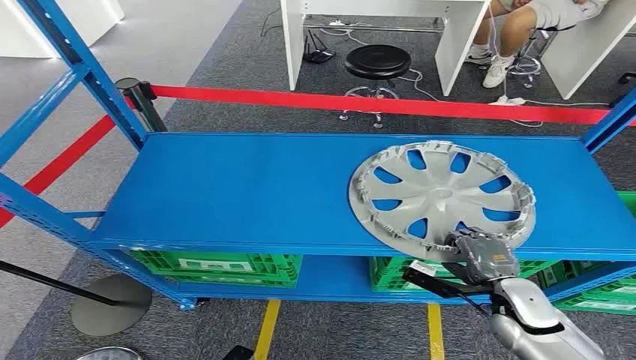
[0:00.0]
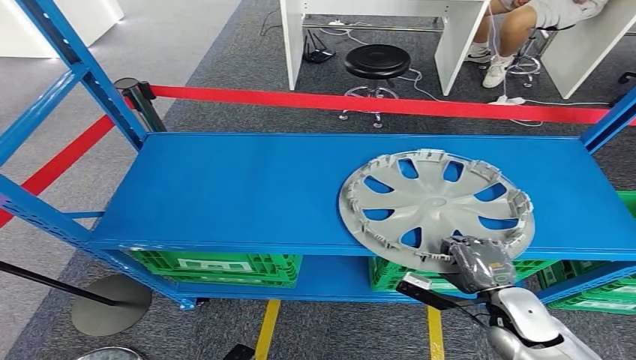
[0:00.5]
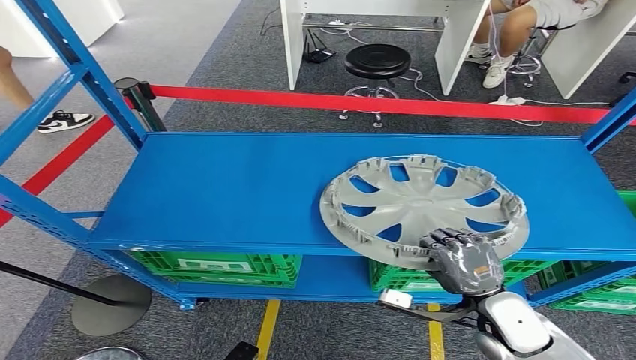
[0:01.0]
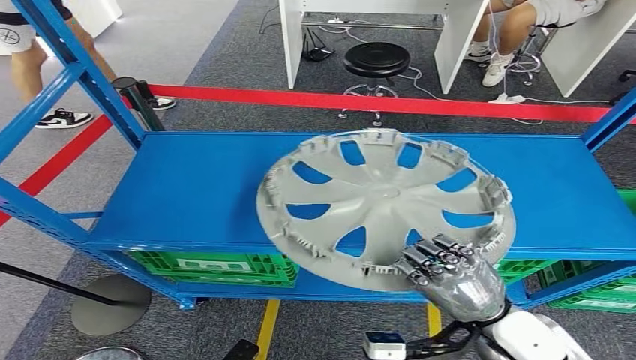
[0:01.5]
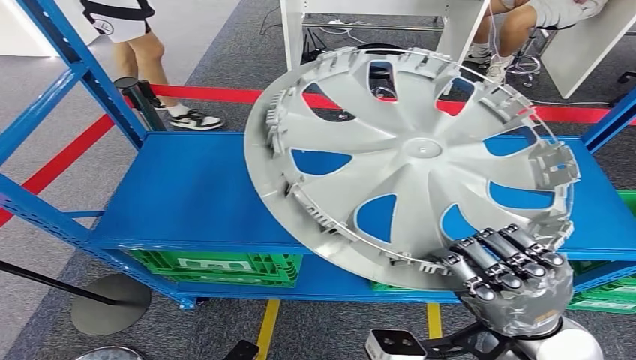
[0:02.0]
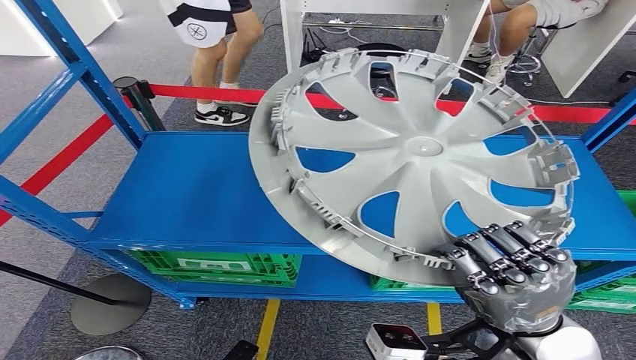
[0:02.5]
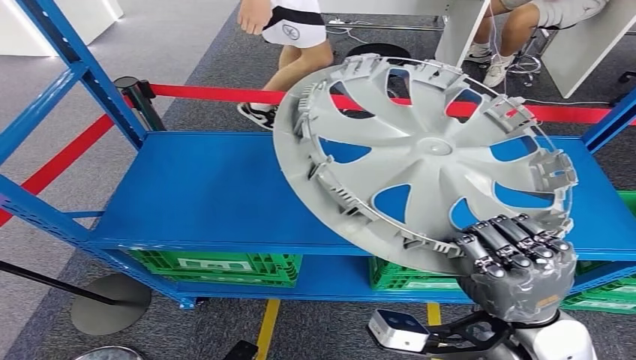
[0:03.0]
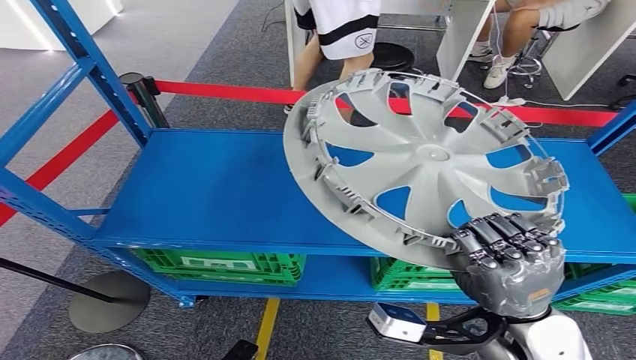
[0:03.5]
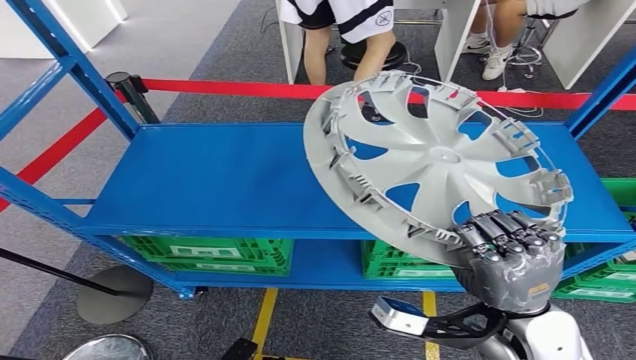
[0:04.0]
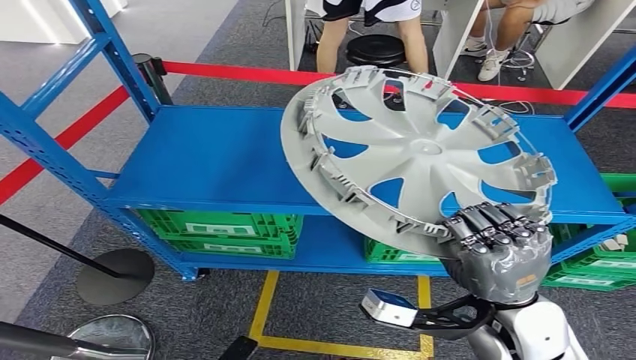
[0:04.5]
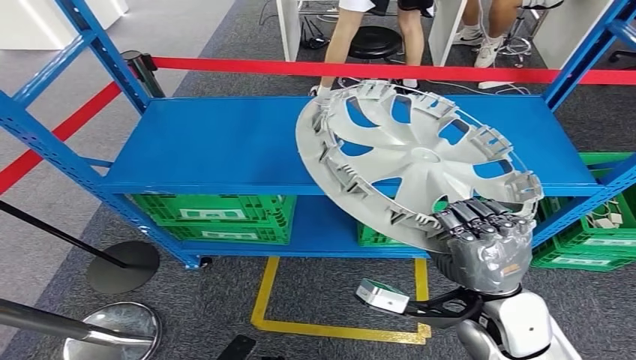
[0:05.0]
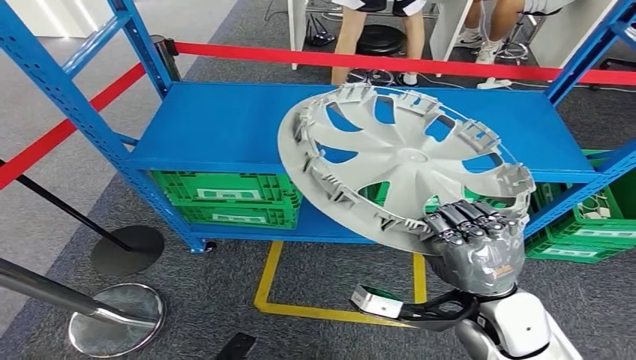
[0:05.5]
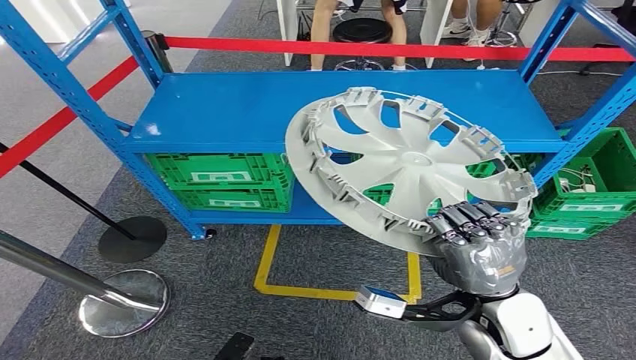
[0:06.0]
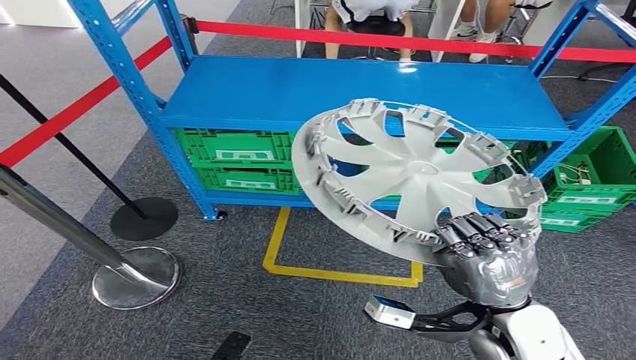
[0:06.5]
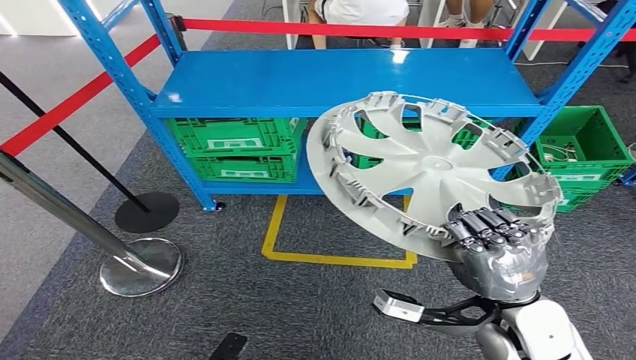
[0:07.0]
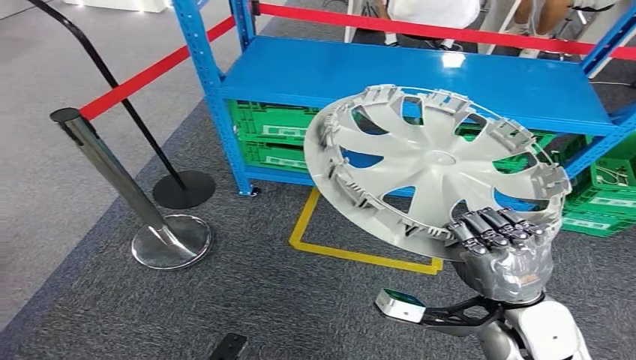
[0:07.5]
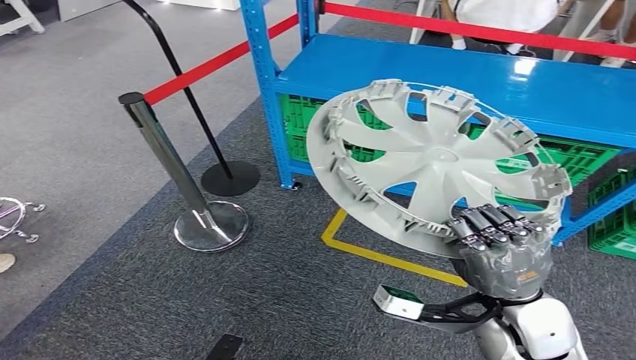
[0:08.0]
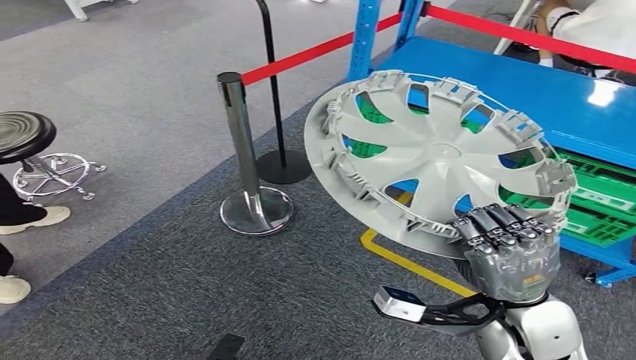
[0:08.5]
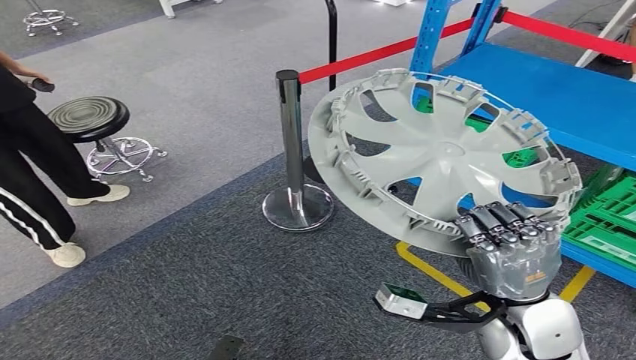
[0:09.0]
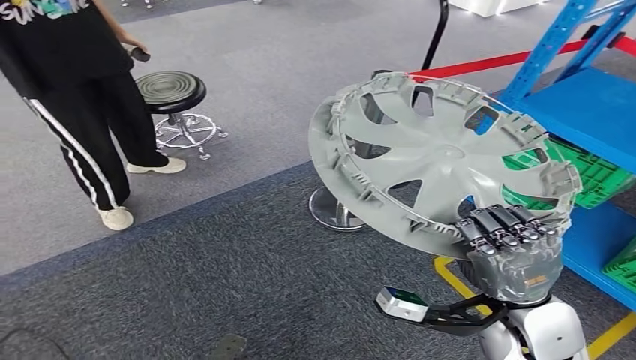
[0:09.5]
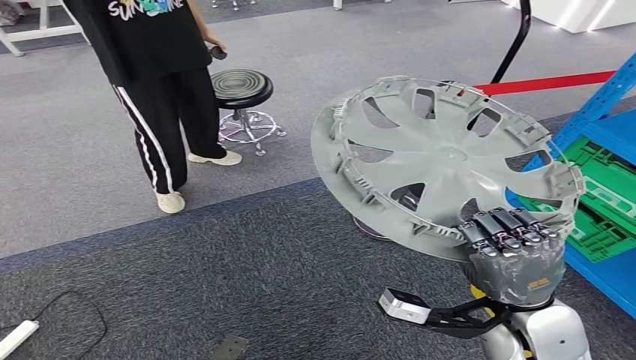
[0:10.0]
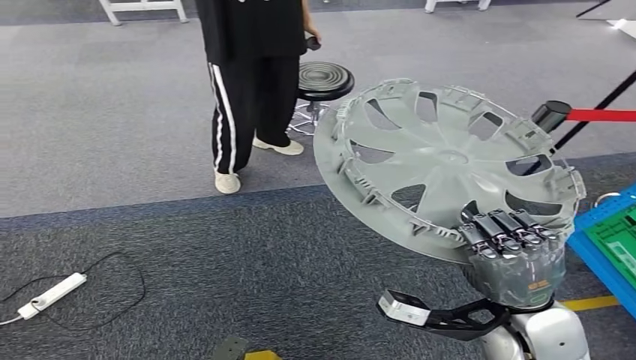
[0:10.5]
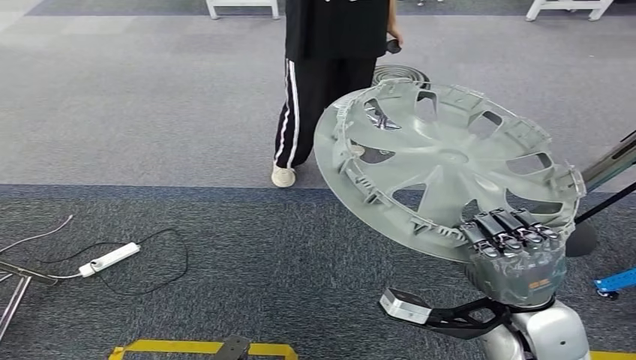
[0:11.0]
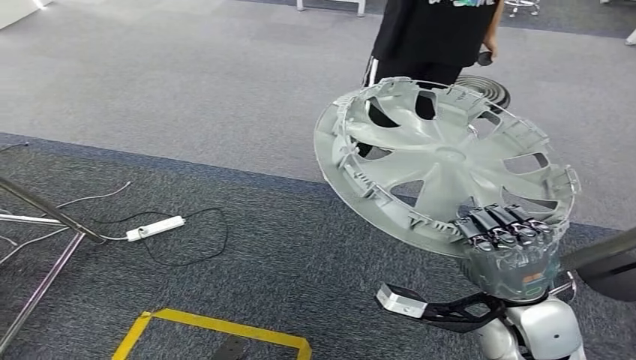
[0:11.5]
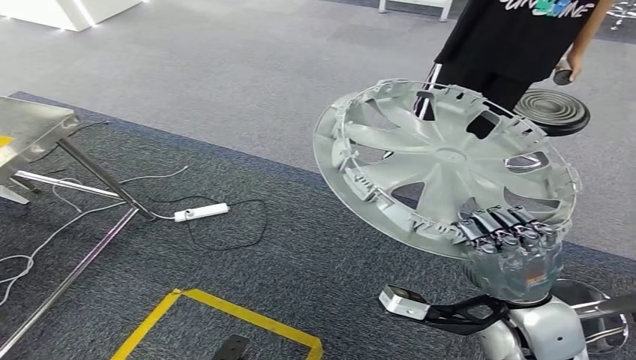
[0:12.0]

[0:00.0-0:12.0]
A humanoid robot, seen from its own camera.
Step, 0:00.0 to 0:03.5: Take small components from the rack.

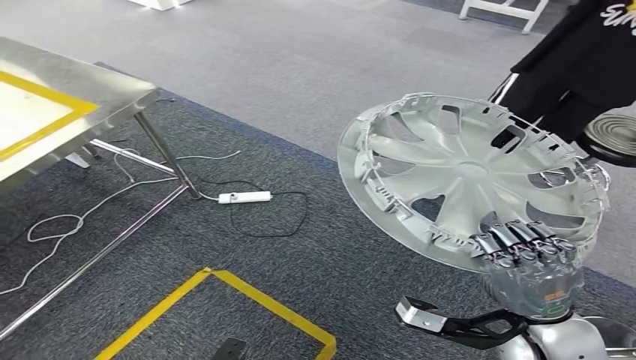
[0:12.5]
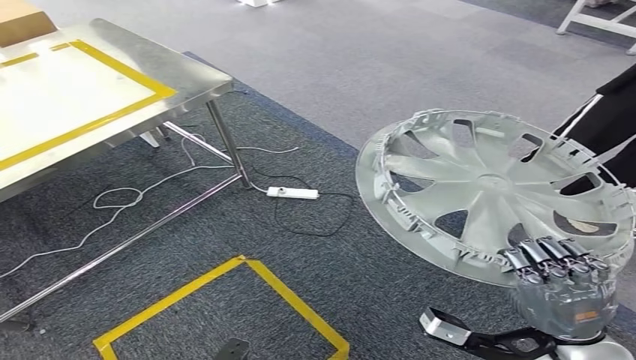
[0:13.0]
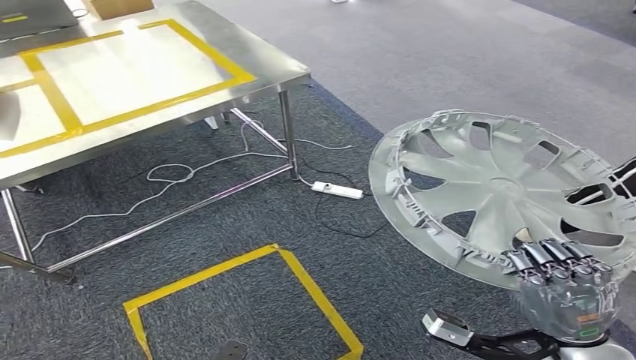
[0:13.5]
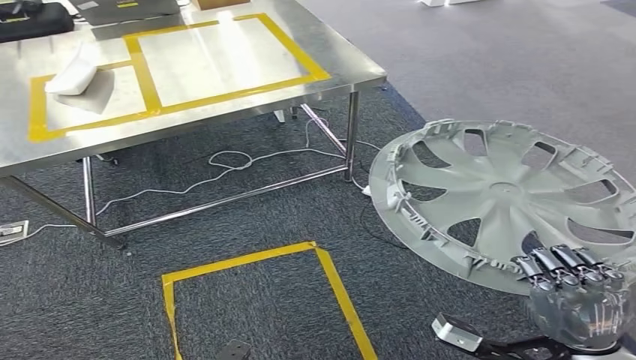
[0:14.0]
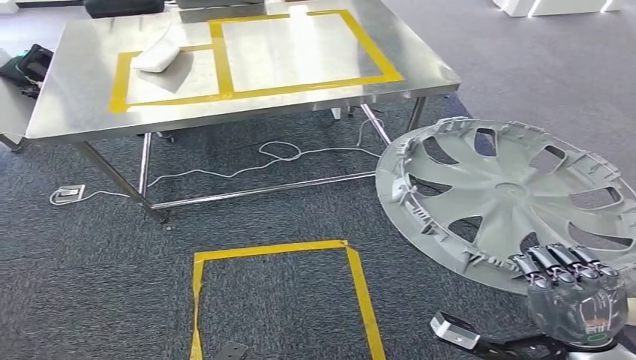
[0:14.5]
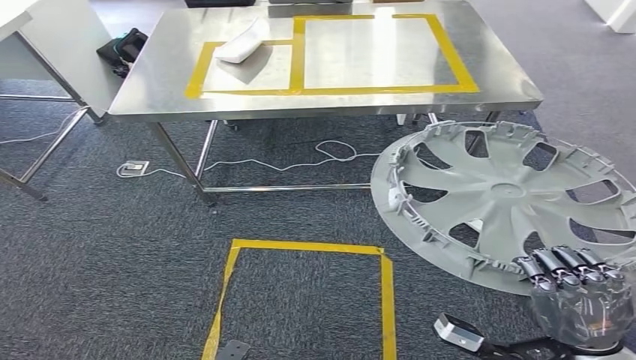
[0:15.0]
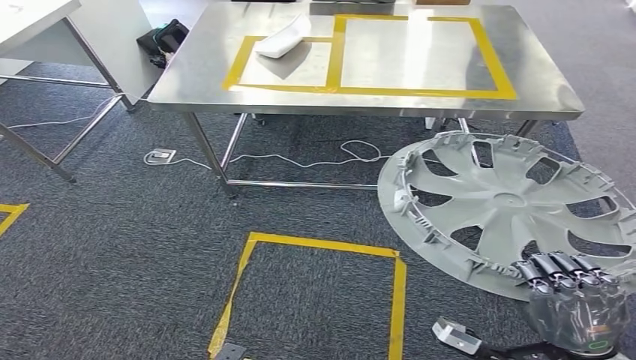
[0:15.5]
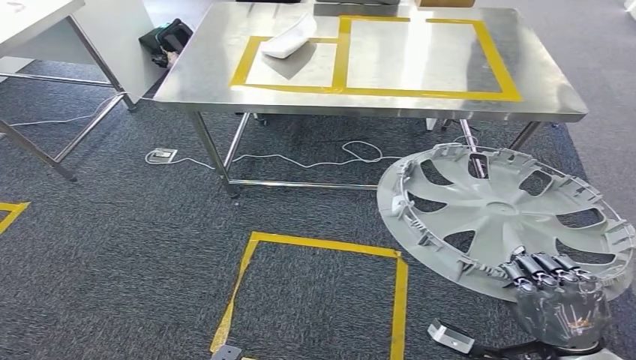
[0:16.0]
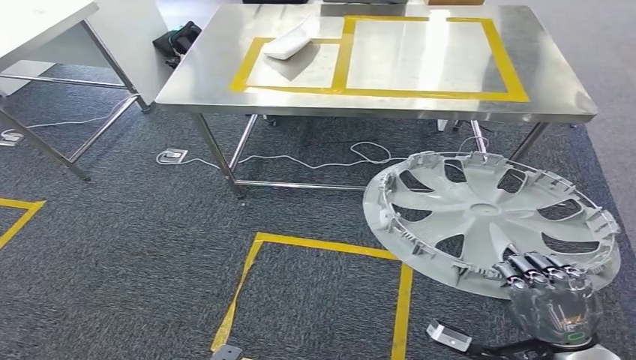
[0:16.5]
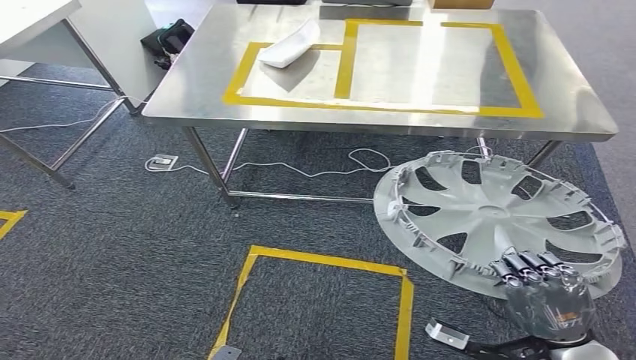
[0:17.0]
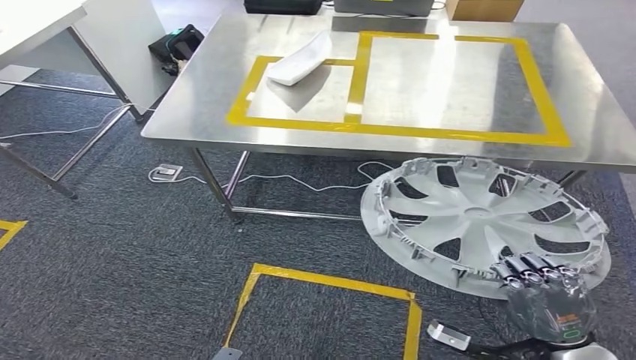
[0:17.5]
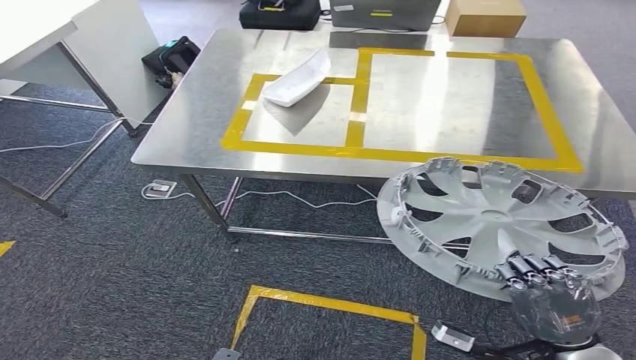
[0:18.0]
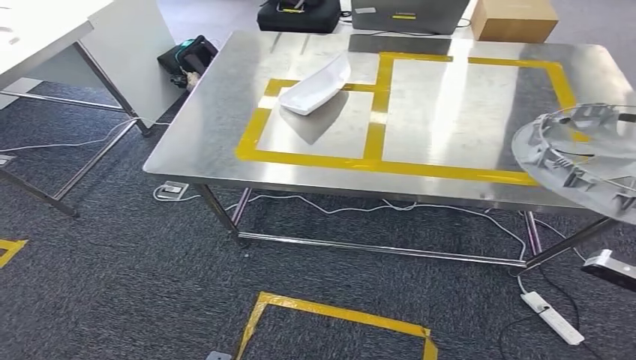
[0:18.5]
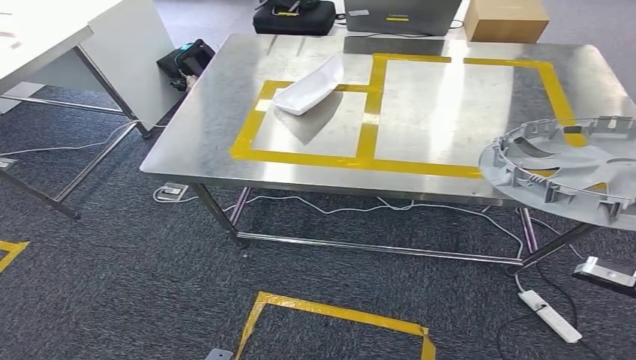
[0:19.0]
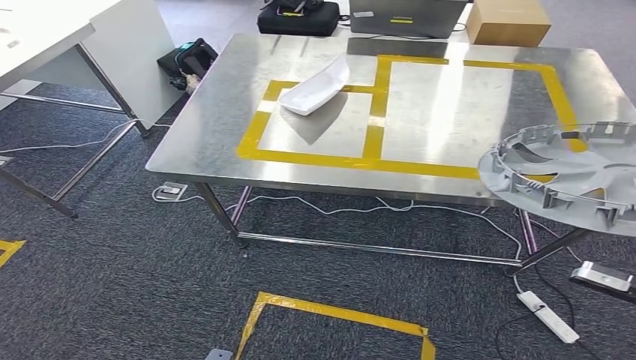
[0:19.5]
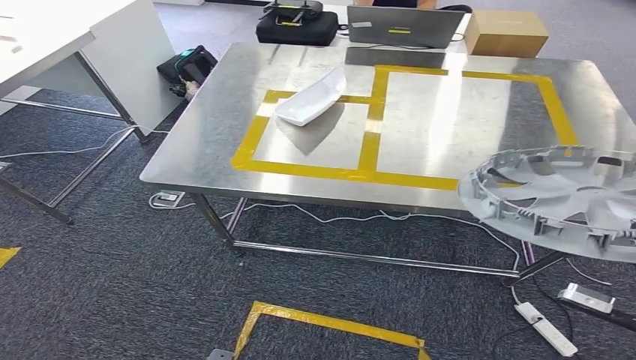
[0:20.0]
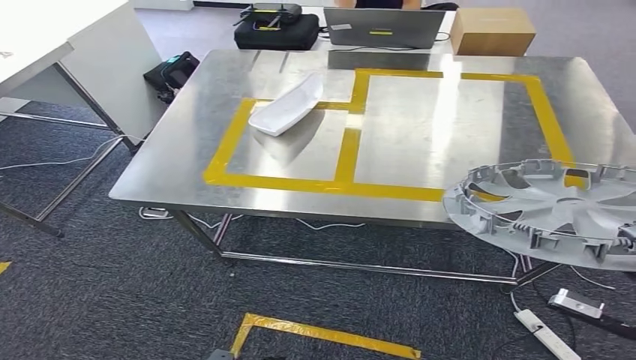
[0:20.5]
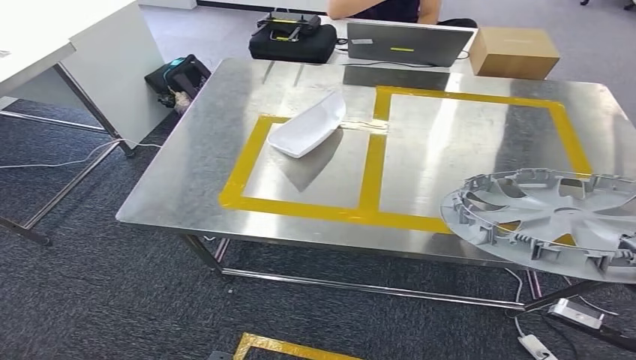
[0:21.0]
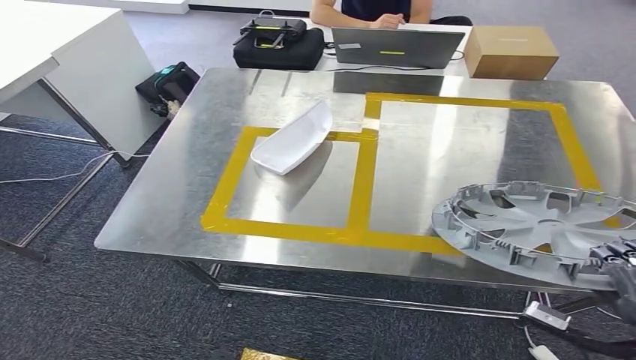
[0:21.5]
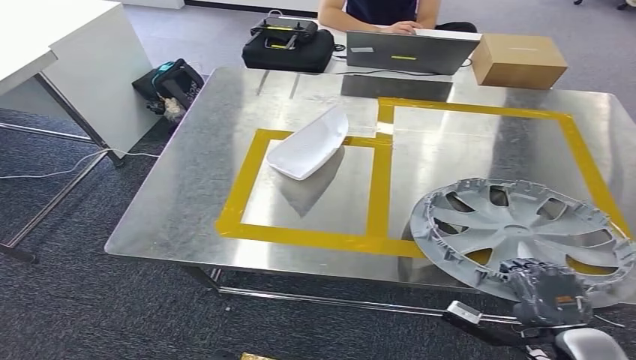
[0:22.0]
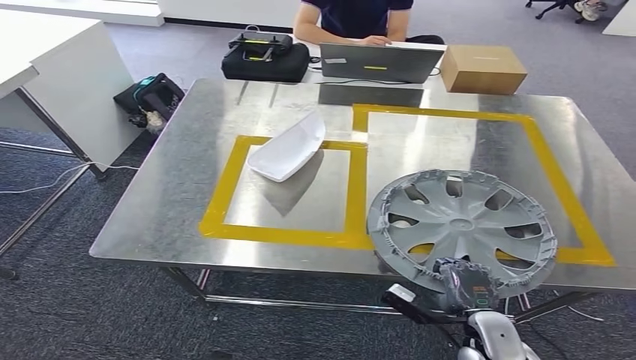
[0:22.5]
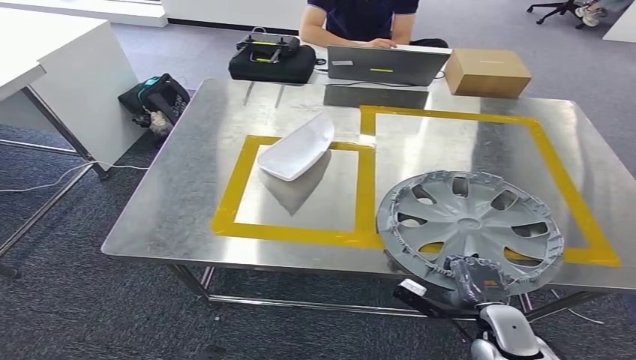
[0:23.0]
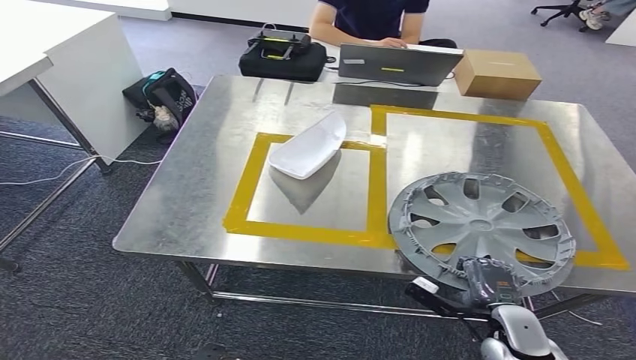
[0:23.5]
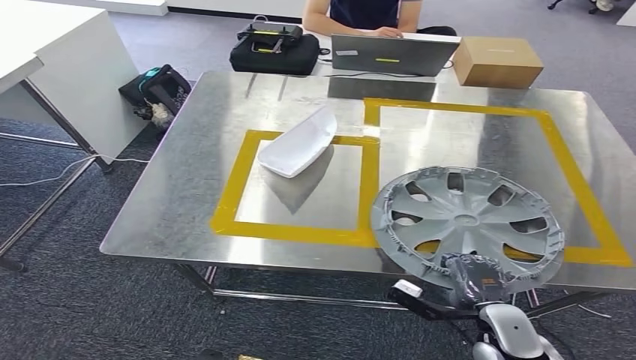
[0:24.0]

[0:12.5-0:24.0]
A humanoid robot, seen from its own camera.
Step, 0:12.5 to 0:19.0: Move the small parts to the workbench.
